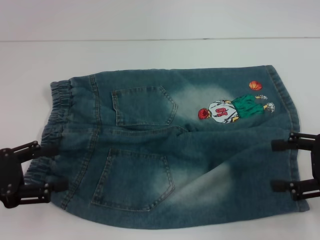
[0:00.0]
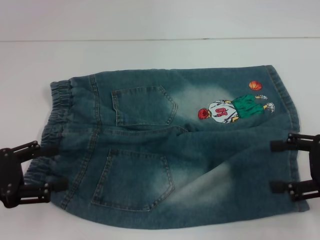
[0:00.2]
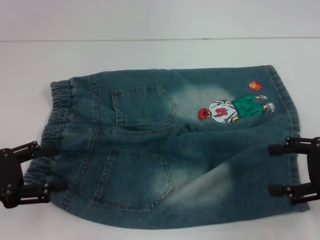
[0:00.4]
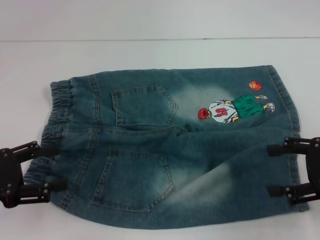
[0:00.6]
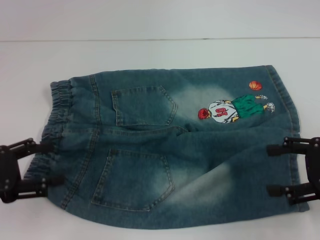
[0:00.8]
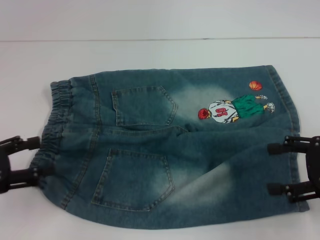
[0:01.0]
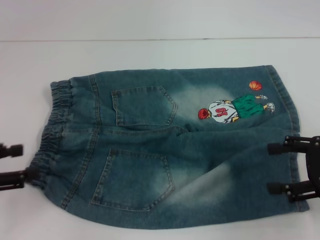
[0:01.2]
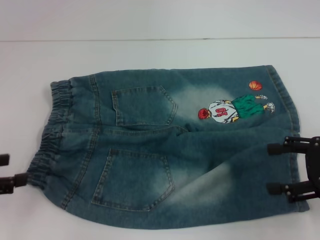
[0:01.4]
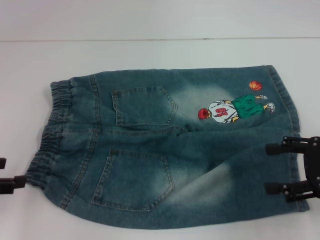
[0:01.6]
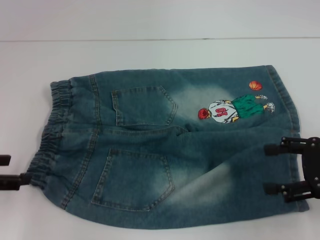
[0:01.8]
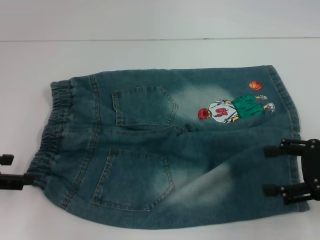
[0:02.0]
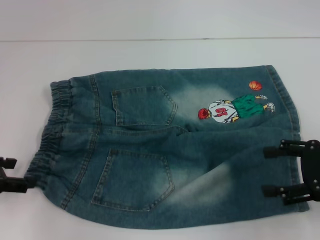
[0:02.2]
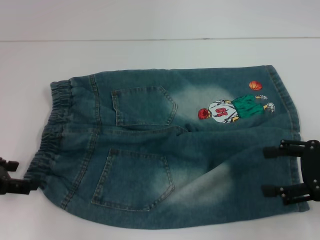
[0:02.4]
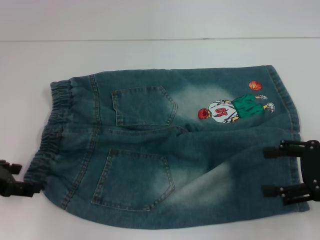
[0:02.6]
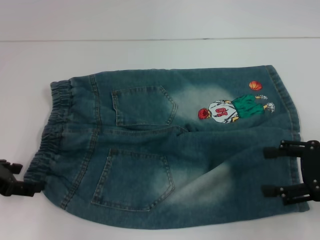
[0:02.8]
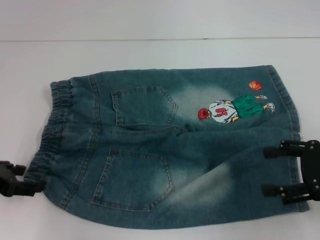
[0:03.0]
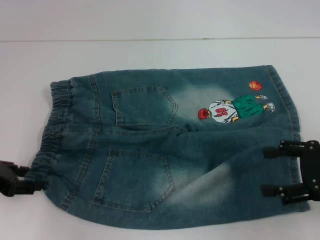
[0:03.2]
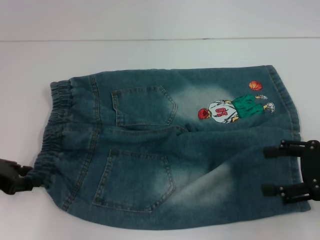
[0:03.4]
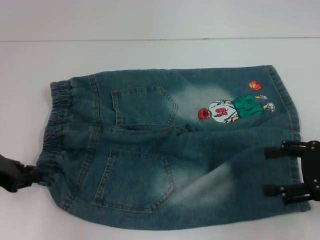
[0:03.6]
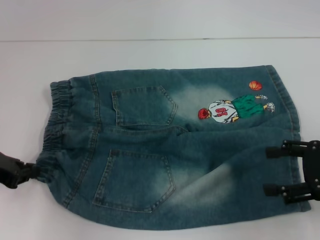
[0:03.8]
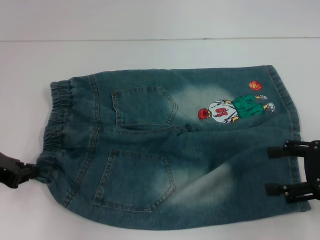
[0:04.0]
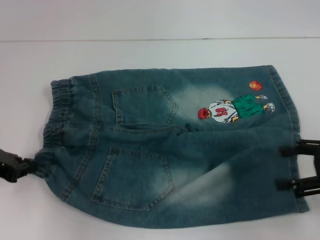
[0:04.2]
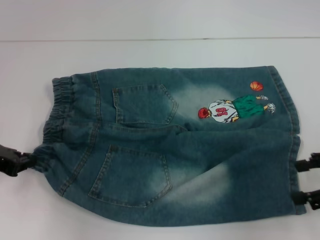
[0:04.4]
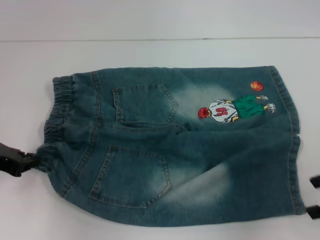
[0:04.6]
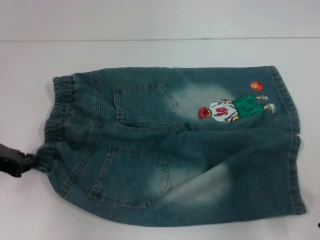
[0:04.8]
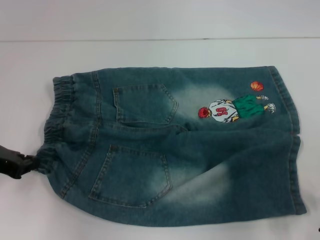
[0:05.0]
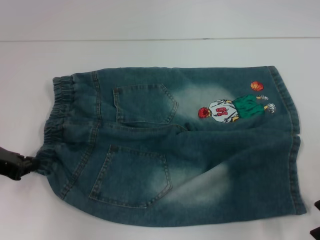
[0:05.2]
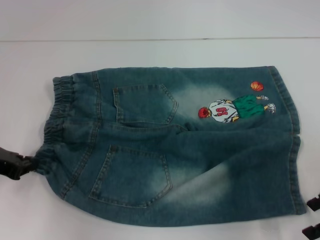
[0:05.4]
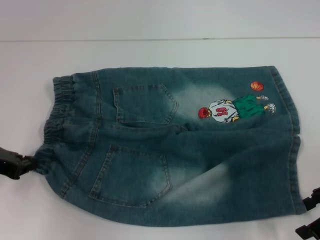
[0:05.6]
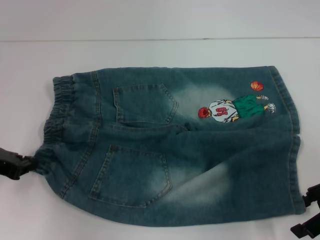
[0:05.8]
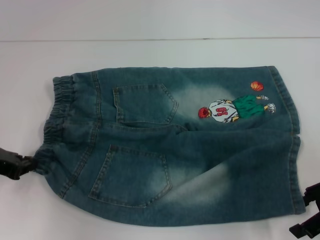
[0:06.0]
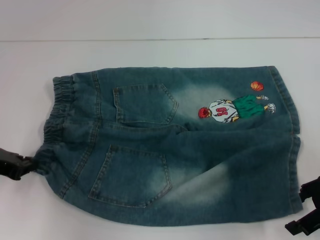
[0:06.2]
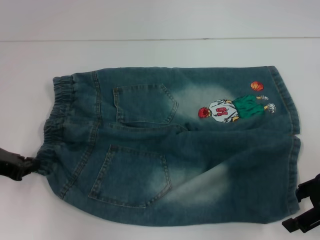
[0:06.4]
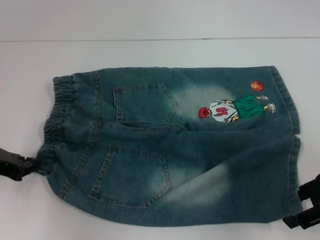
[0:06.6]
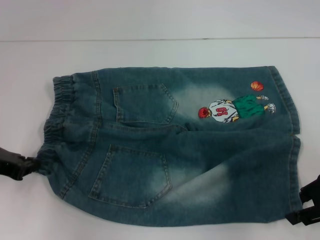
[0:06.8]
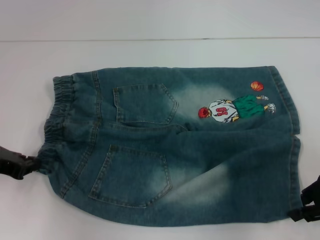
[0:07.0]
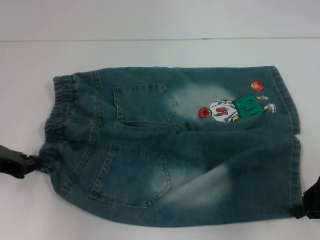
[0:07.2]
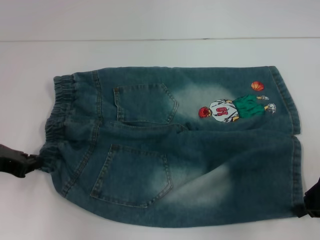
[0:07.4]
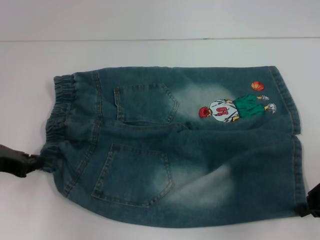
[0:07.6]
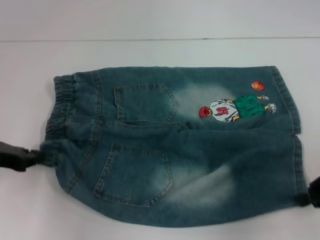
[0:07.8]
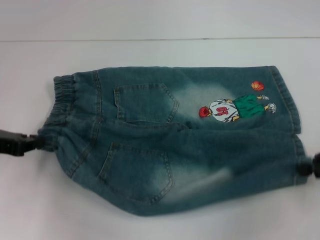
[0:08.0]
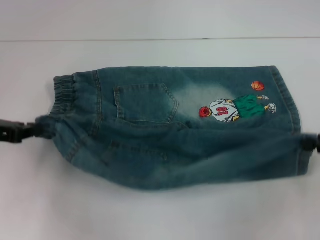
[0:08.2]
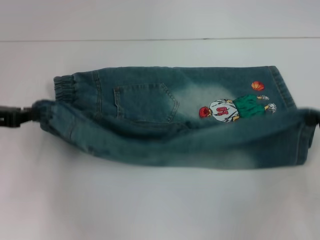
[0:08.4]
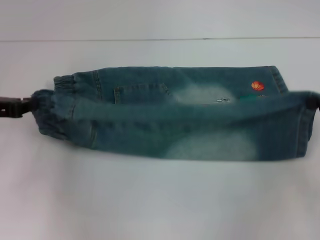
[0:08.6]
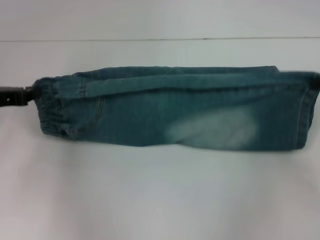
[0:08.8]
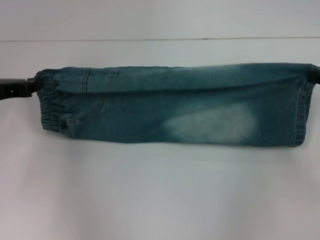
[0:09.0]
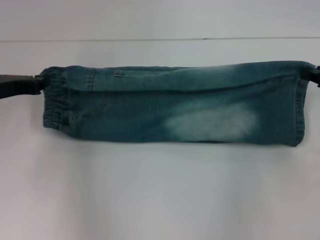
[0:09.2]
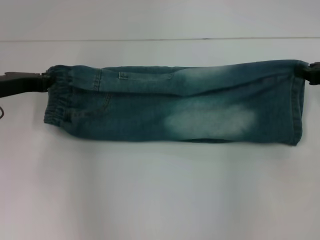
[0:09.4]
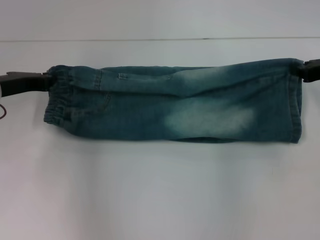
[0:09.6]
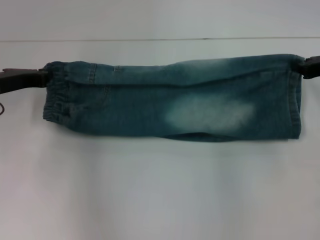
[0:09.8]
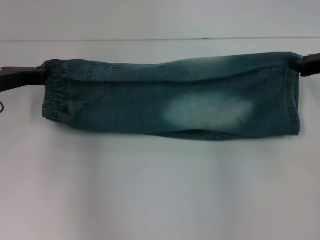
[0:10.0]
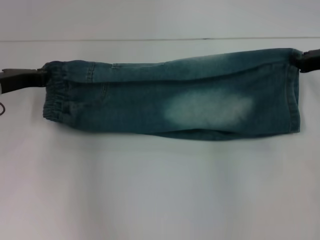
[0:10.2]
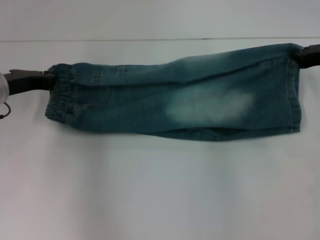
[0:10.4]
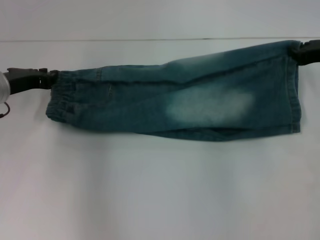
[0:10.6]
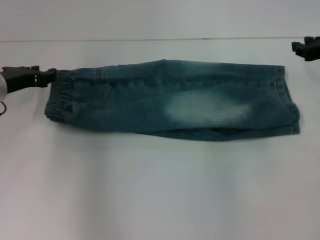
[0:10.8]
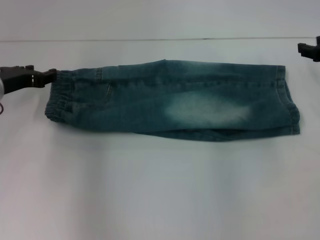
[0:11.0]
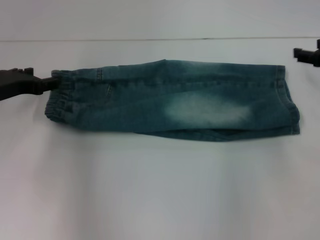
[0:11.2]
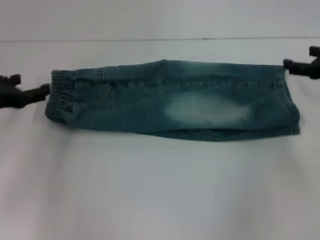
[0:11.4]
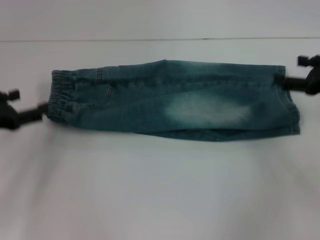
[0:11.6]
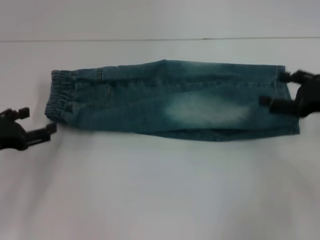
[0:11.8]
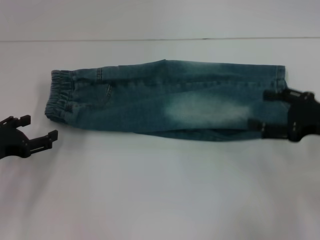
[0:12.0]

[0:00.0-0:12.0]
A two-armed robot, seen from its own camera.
Step, 0.0 to 4.0 s: Hold the lower left waistband with your left hand.
Step, 4.2 to 7.4 s: Grab the lower right pant leg with your right hand.
Step, 7.6 to 11.2 s: Fold upward with your right hand.
1.6 to 3.0 s: The left gripper shifts by some 5 cm.
3.0 to 4.4 s: The left gripper closes.
6.0 to 7.6 s: The right gripper closes up.
7.6 to 9.0 s: The grippers both shift forward by some 5 cm.
9.0 to 10.4 s: The left gripper ends up some 5 cm from where it was. The right gripper heads forward, covering some 5 cm.
10.4 to 12.0 s: The grippers both shift backward by roughly 10 cm. The right gripper opens, while the left gripper opens its fingers.

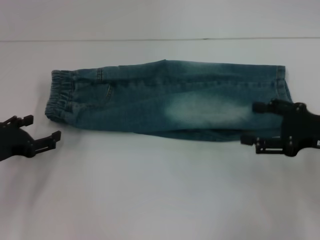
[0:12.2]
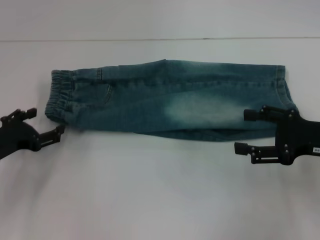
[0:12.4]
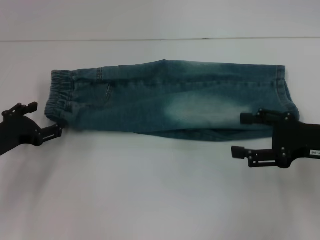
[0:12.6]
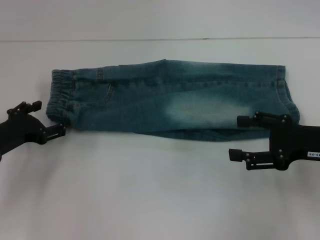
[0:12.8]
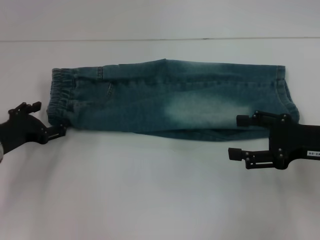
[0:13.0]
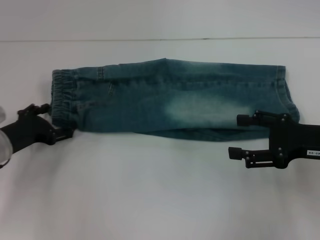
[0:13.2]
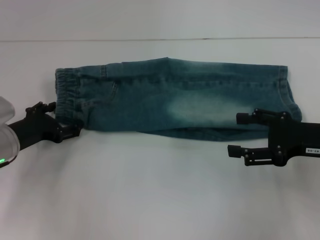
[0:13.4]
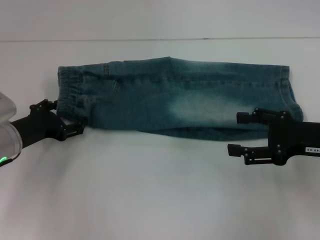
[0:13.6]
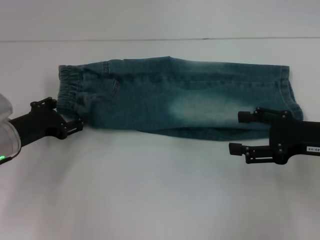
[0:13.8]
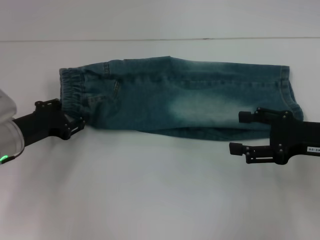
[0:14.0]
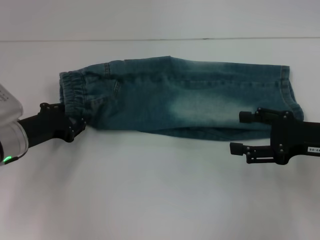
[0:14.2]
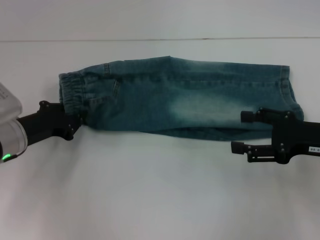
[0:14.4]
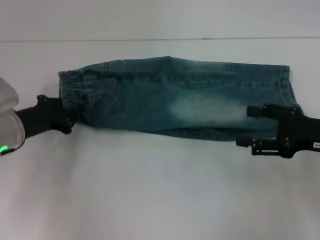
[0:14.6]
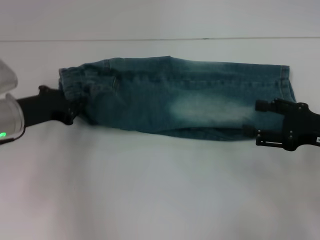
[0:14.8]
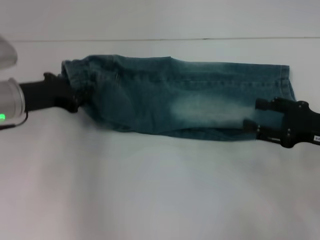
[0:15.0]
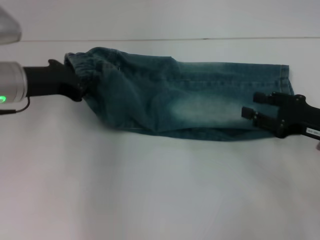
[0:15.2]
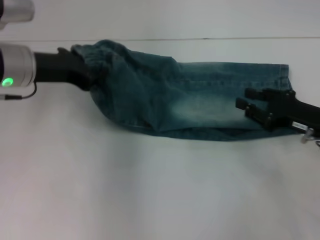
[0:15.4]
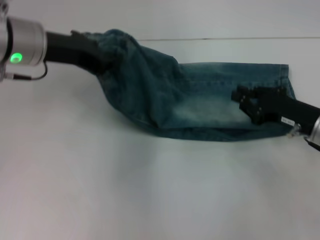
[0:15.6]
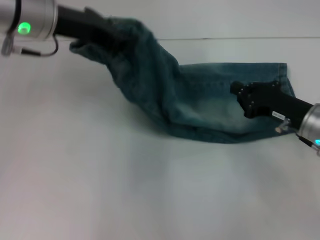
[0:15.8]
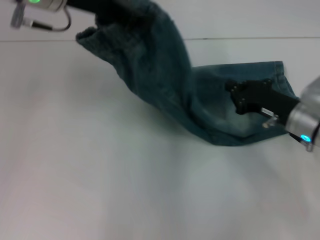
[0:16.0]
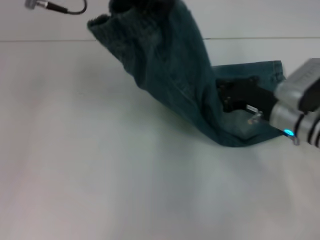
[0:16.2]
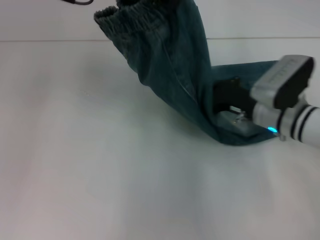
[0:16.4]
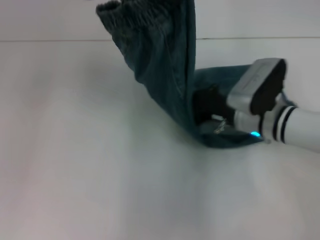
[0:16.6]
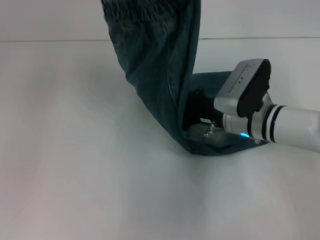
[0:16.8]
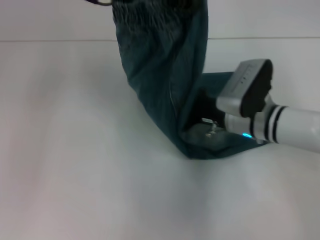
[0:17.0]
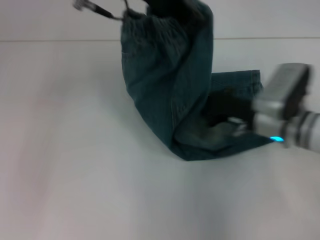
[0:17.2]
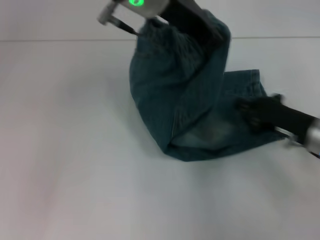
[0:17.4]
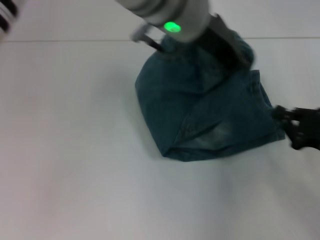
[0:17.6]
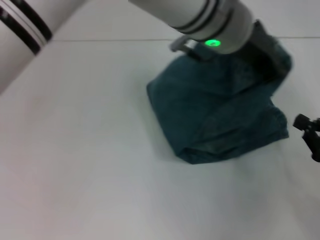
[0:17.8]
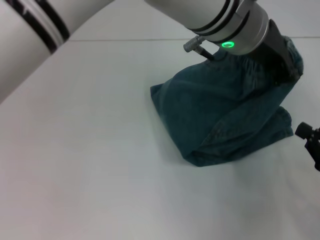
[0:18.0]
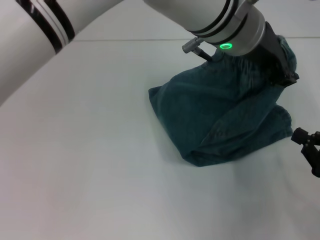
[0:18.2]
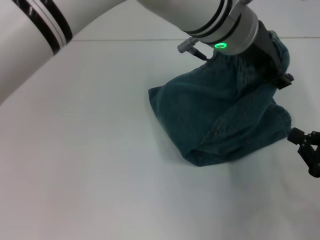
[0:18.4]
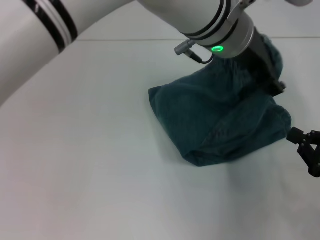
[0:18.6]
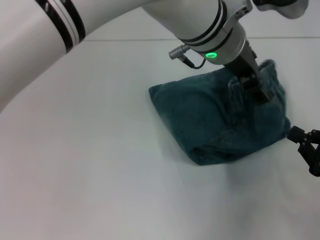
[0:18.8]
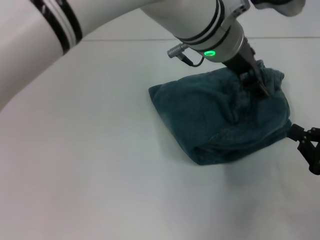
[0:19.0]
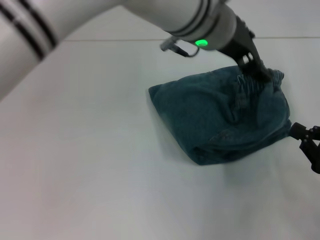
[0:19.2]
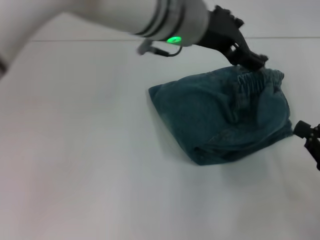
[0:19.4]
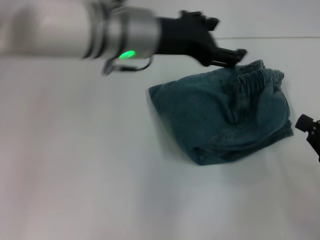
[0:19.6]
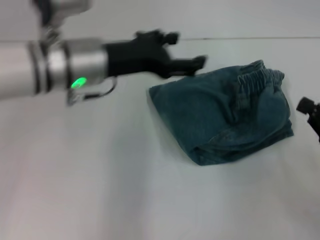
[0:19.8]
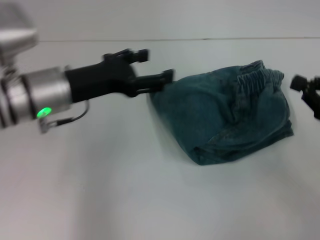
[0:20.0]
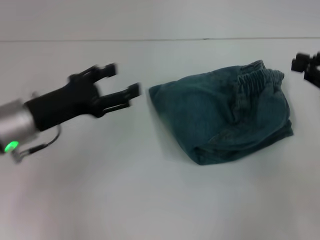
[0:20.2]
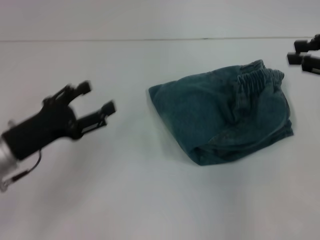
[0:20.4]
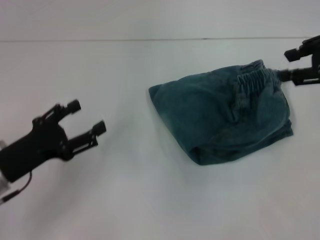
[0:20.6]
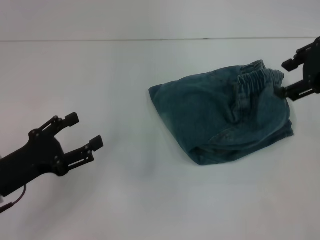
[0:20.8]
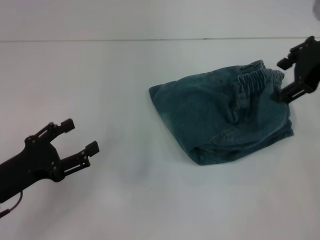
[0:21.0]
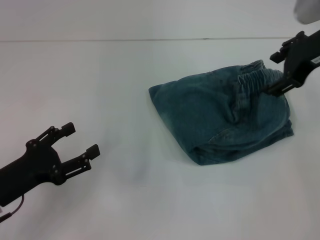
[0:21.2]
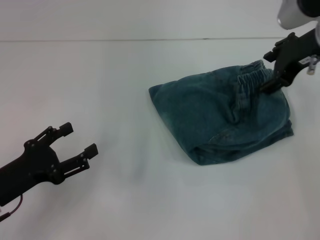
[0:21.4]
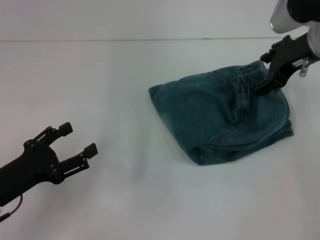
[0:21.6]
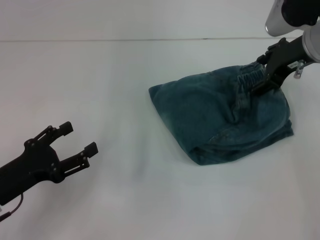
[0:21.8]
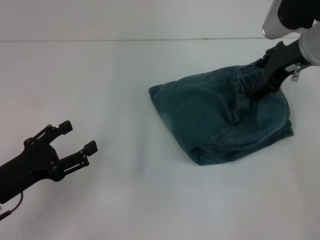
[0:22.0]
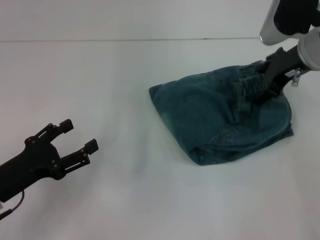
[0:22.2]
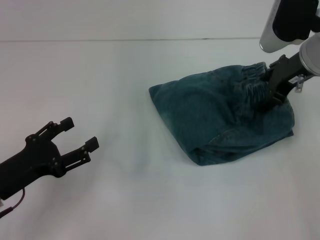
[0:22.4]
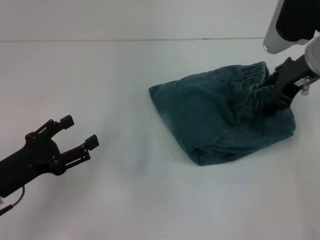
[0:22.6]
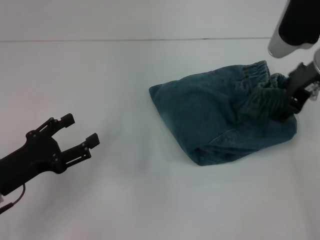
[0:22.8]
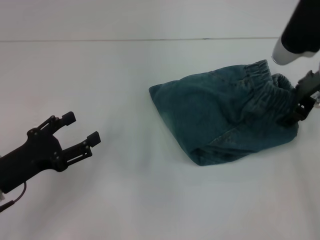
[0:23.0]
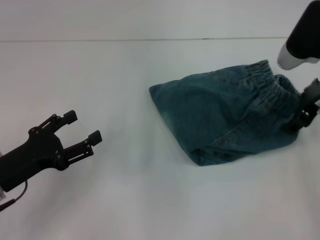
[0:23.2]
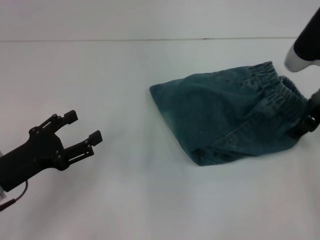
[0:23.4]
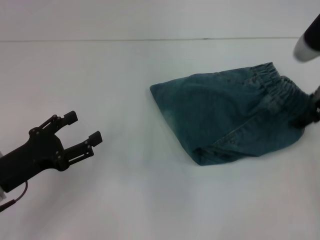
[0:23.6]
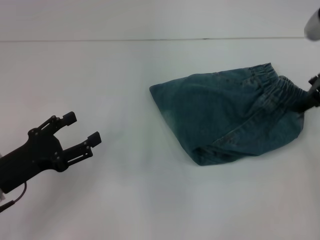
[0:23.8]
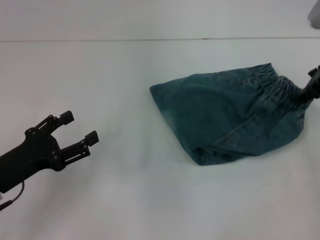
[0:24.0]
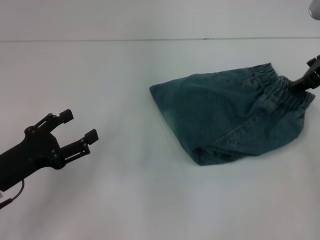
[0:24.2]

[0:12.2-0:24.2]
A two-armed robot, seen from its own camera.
Step, 12.2 to 14.8 s: Hold the waistband with your left hand.
Step, 15.0 to 17.2 s: Press the middle of the pants with your right hand.
Step, 17.6 to 19.6 s: Fold to the right with your left hand.
12.2 to 13.8 s: The left gripper changes place by approximately 5 cm.
13.8 to 15.2 s: The left gripper moves upward, roughly 10 cm, and closes.
15.2 to 16.6 s: The right gripper shifts about 15 cm to the left and forward, and closes its fingers, while the left gripper moves upward and to the right, about 20 cm.
16.6 to 18.2 s: The right gripper shifts some 25 cm to the right and backward. Meanwhile the left gripper goes some 20 cm to the right and downward.
18.2 to 19.8 s: The right gripper shifts by about 5 cm. Meanwhile the left gripper shifts approximately 20 cm to the left, and opens up.
19.8 to 21.2 s: The left gripper shifts approximately 25 cm backward, to the left and downward. Meanwhile the right gripper goes some 25 cm upward, forward and to the left, and opens up.
21.2 to 22.6 s: There are only small adjustments of the grippers.
22.6 to 24.2 s: The right gripper shifts by some 5 cm.
